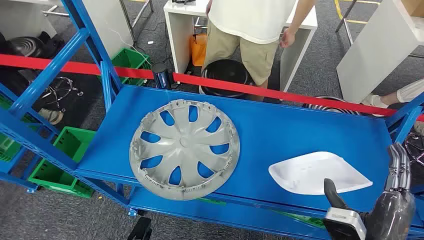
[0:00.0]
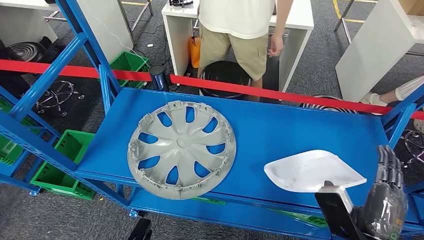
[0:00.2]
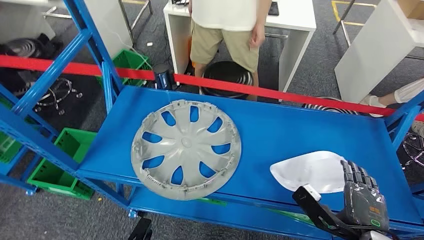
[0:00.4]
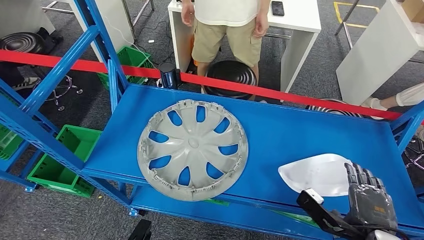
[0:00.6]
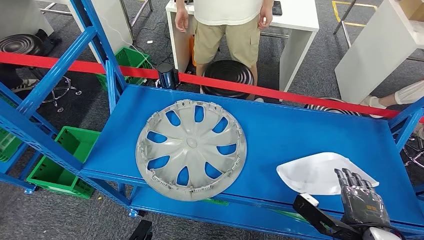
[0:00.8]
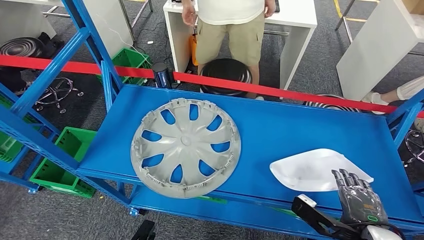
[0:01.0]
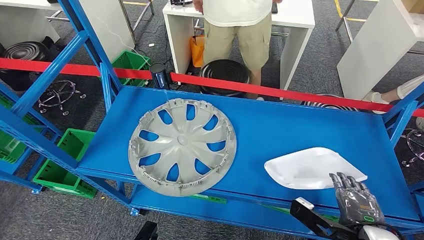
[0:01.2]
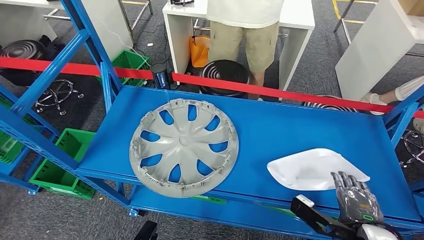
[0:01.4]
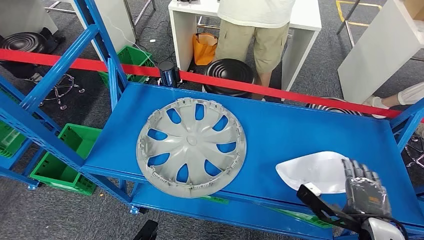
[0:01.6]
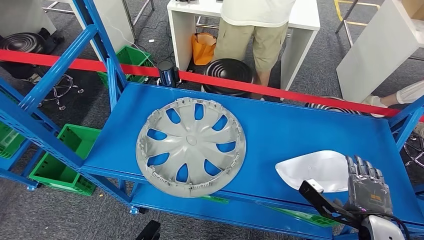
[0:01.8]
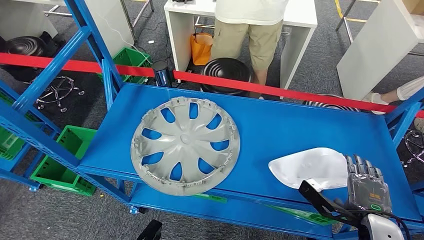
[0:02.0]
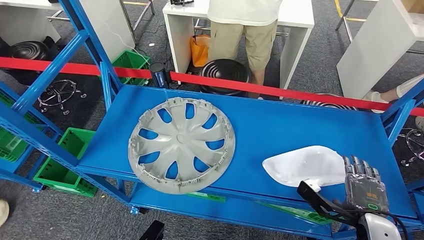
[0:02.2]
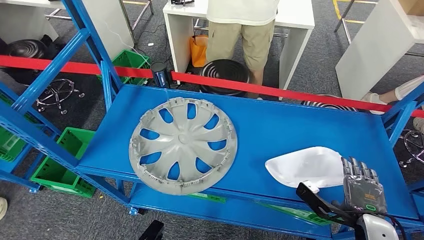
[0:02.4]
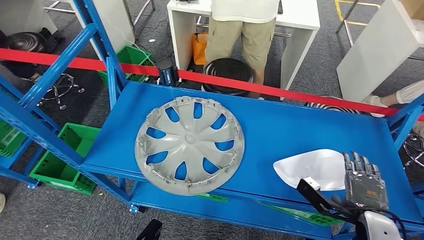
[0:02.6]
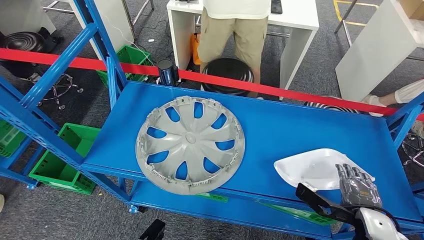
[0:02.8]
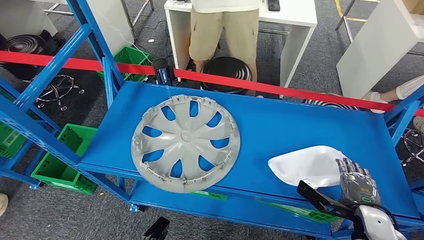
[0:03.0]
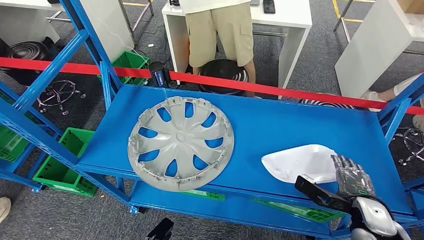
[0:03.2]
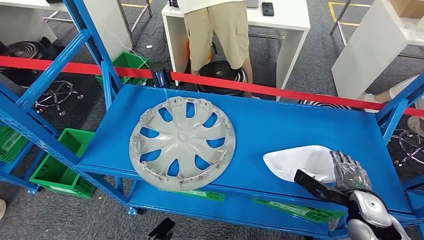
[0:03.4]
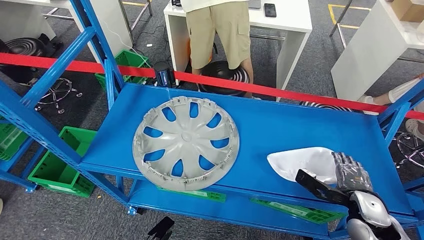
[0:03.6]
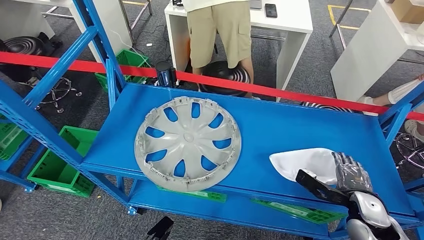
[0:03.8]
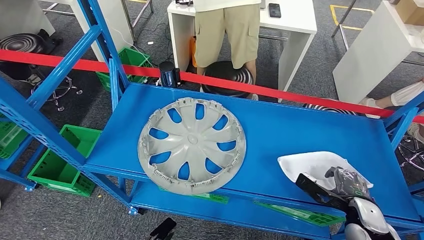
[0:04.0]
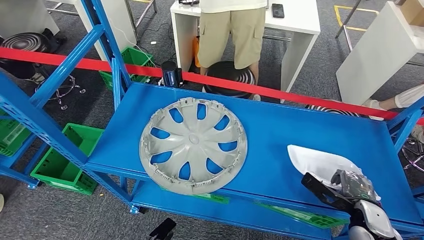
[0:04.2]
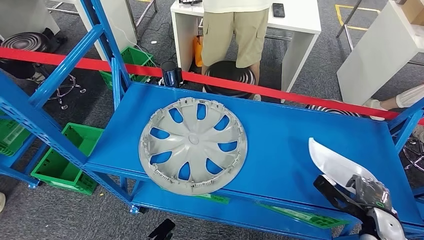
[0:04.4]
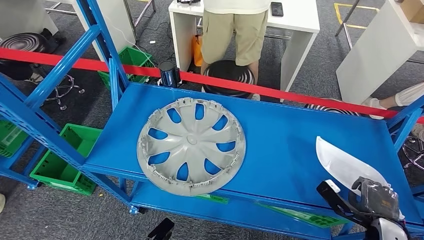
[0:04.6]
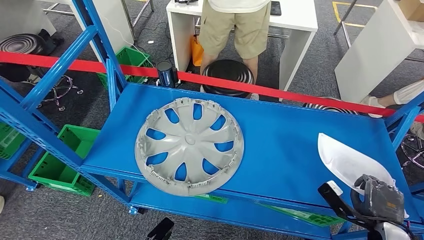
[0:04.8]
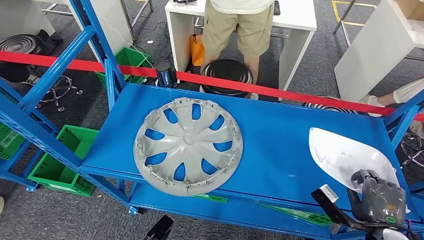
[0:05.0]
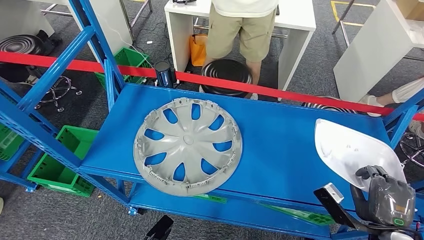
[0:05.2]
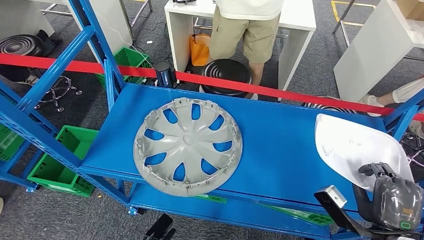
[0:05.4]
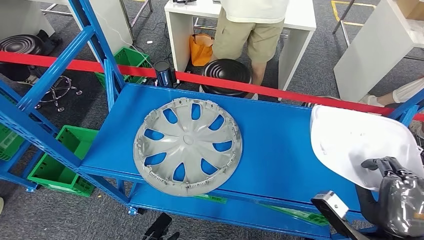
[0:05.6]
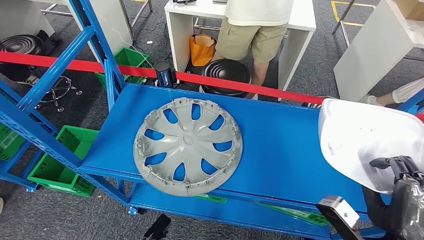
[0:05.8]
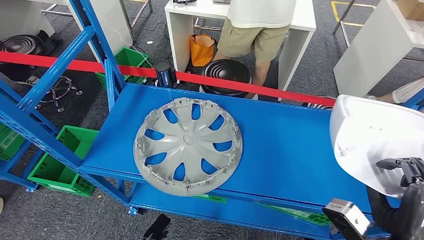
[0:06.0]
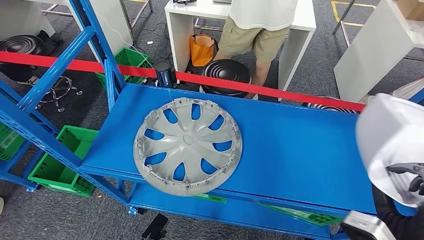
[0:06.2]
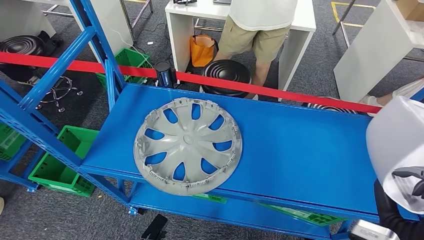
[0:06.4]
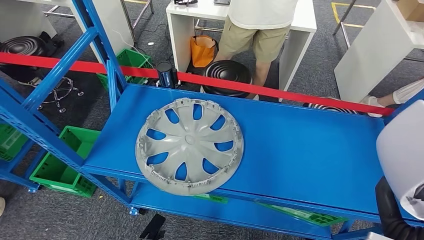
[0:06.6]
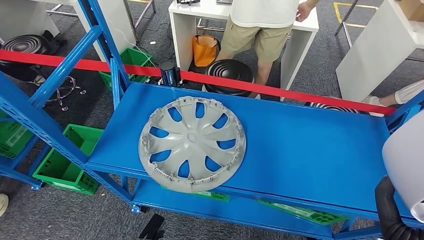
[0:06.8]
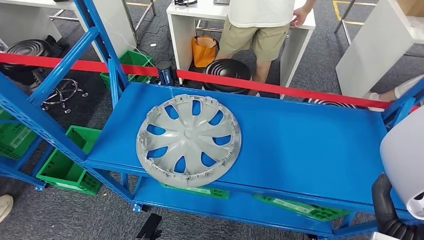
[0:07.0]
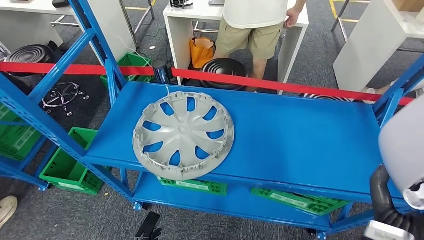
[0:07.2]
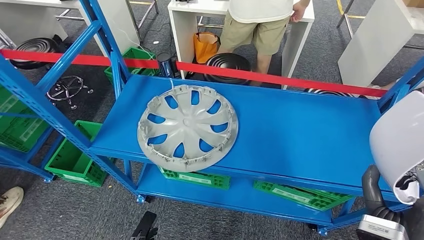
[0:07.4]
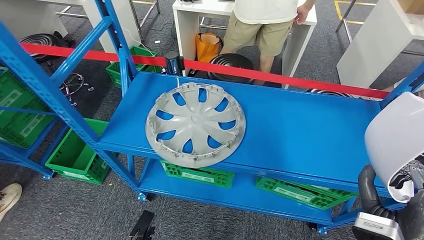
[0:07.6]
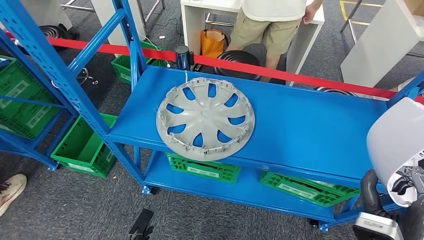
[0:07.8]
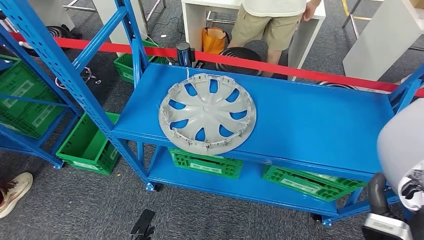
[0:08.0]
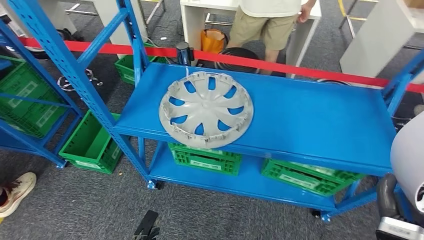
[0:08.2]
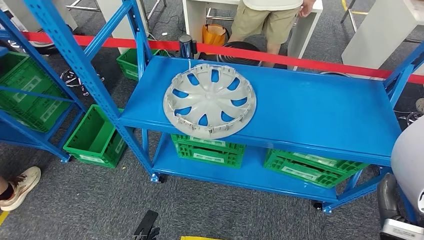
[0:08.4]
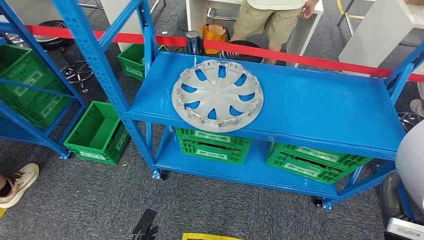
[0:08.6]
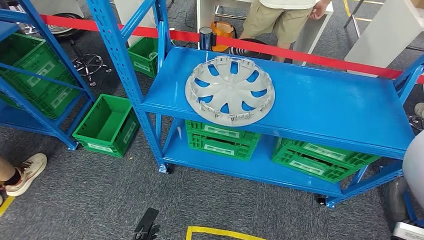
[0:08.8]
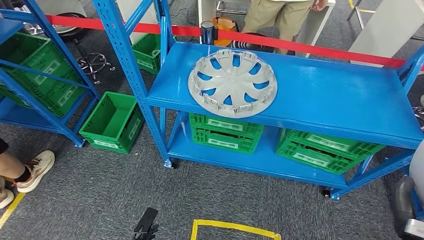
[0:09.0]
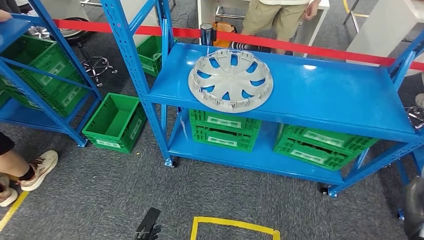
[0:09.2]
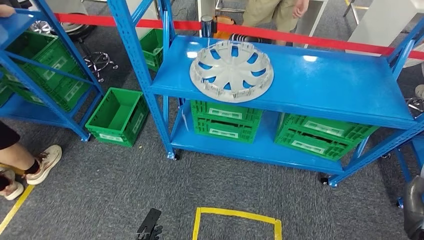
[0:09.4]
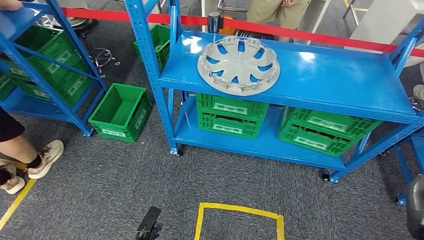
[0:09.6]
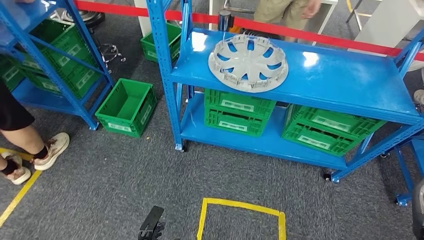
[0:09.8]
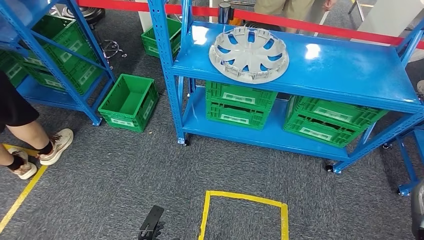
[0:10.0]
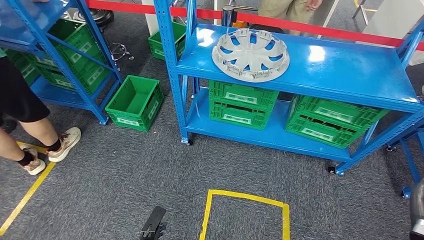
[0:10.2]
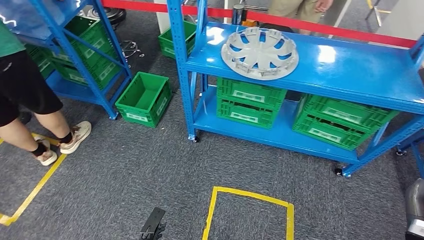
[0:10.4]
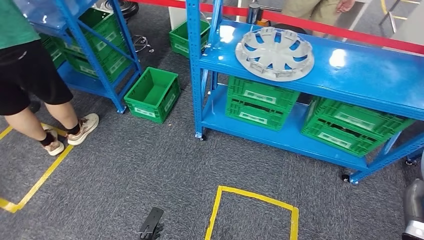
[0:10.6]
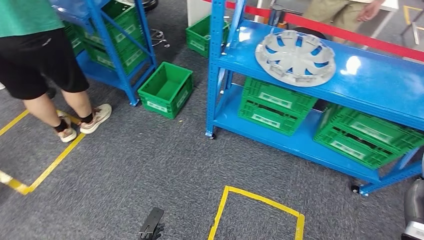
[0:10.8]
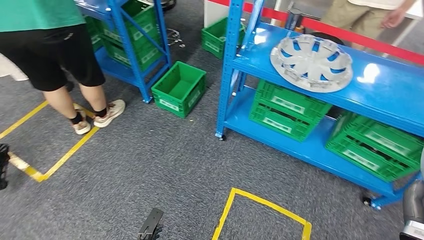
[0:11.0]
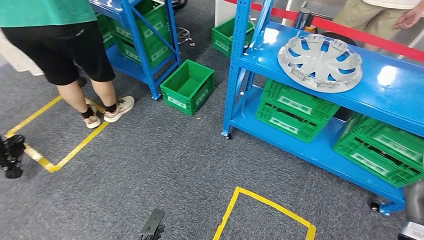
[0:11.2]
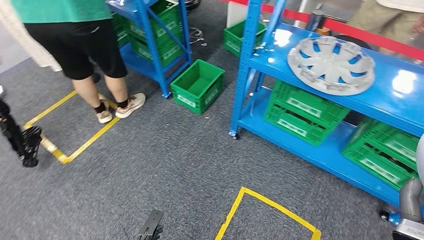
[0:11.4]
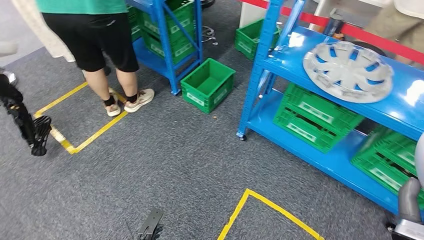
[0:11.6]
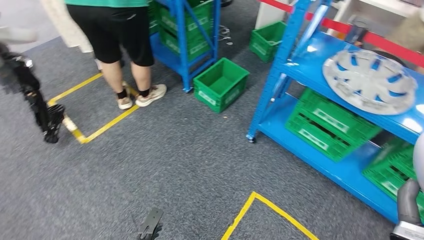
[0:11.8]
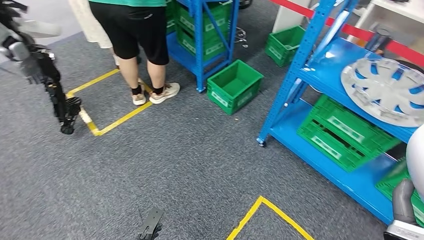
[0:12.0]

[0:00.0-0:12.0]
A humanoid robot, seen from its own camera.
Step, 0:00.0 to 0:07.0: Pick up the small component from the shelf.

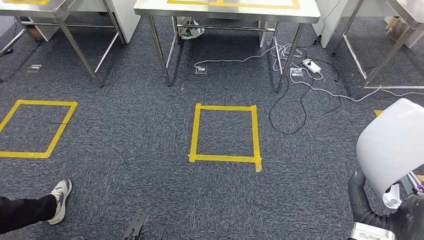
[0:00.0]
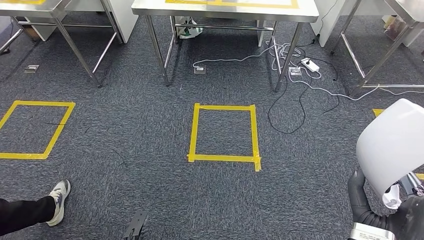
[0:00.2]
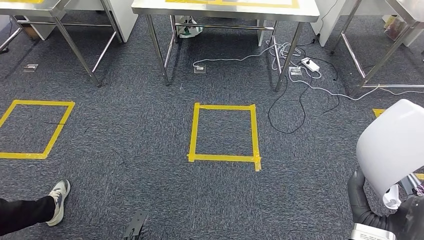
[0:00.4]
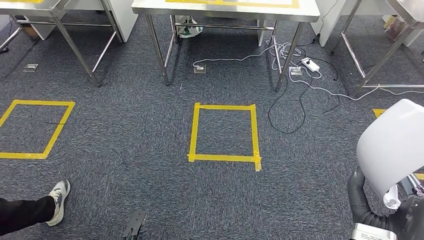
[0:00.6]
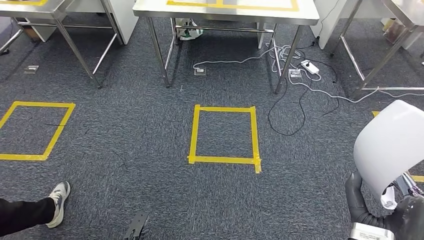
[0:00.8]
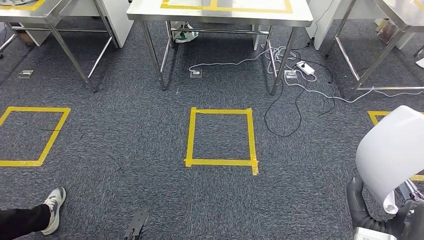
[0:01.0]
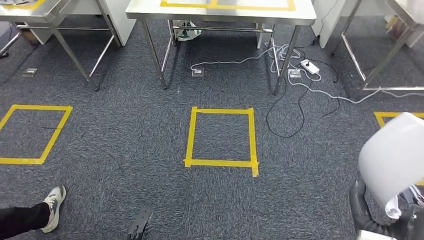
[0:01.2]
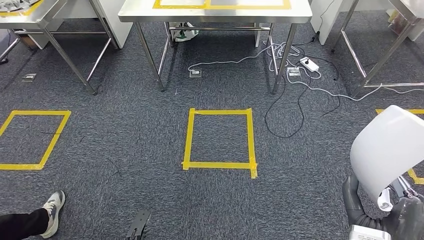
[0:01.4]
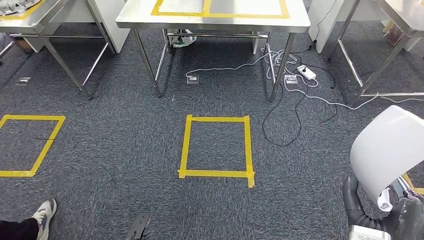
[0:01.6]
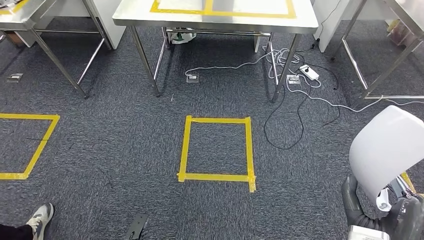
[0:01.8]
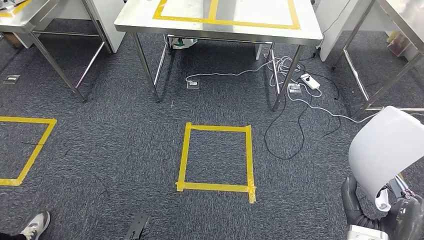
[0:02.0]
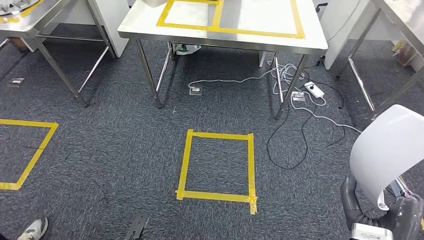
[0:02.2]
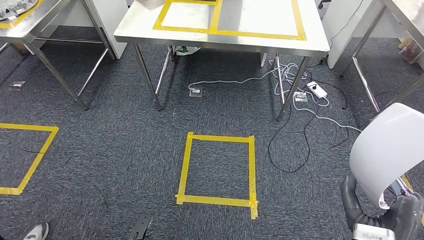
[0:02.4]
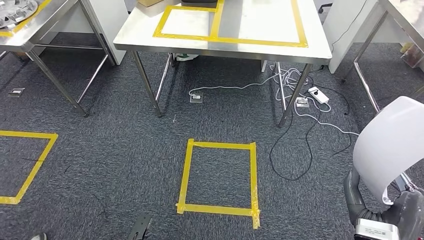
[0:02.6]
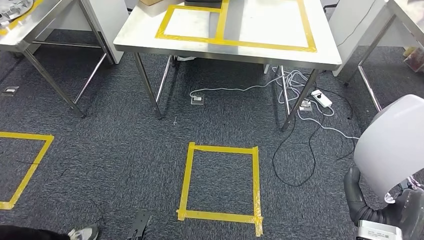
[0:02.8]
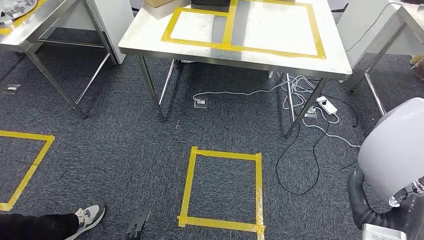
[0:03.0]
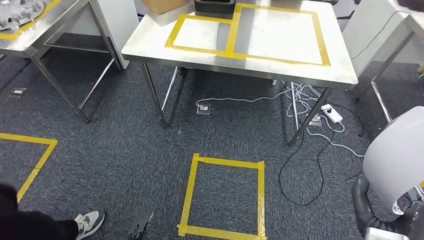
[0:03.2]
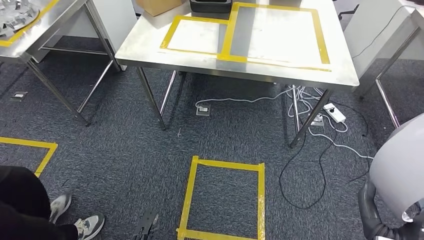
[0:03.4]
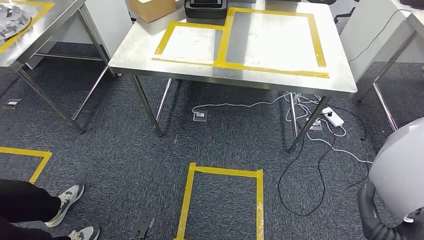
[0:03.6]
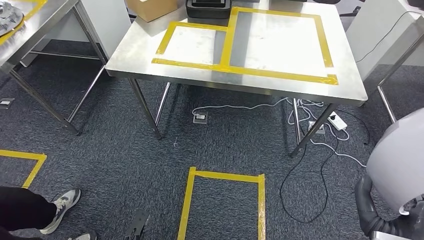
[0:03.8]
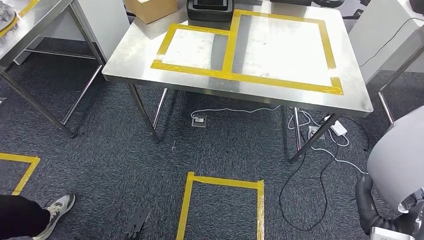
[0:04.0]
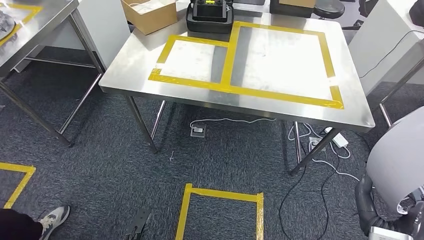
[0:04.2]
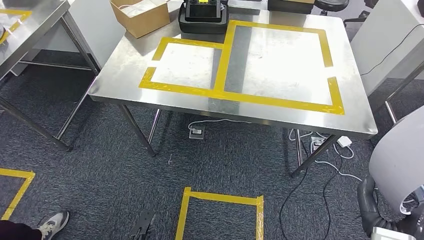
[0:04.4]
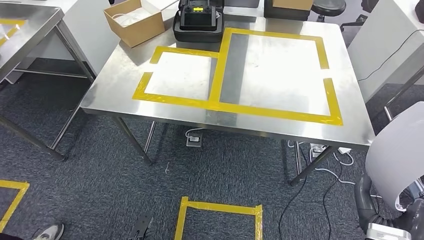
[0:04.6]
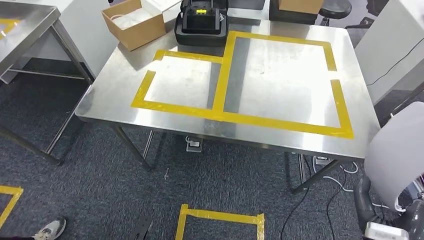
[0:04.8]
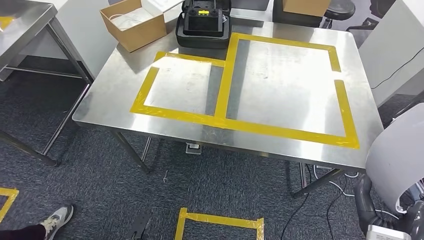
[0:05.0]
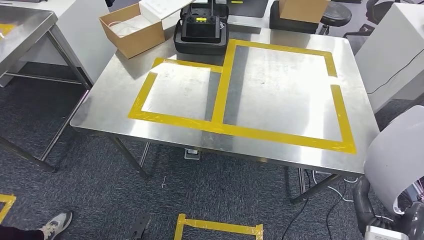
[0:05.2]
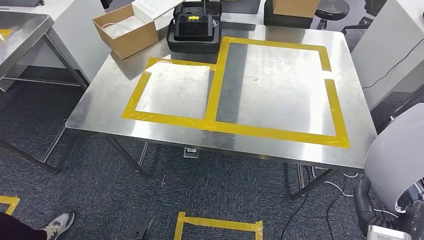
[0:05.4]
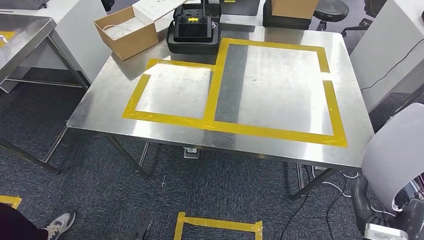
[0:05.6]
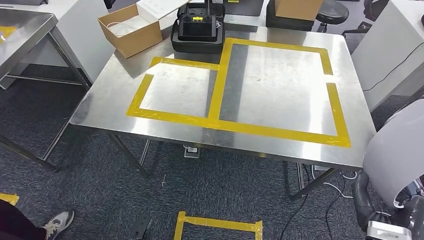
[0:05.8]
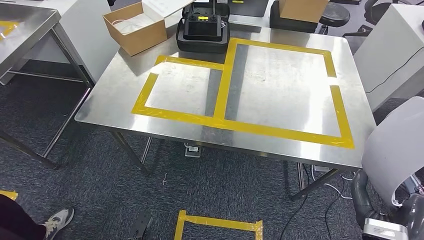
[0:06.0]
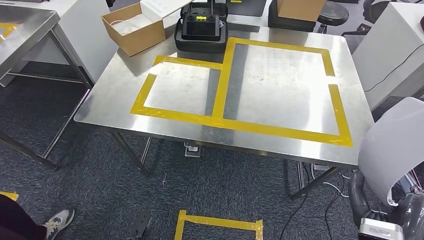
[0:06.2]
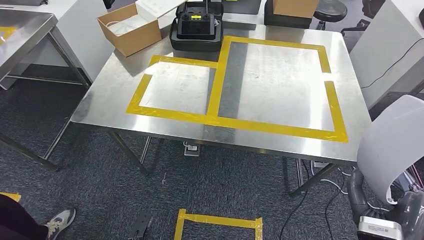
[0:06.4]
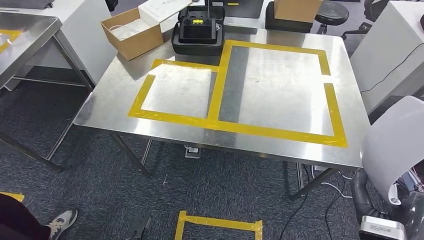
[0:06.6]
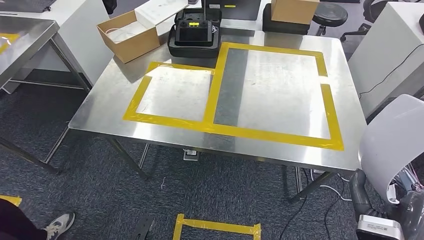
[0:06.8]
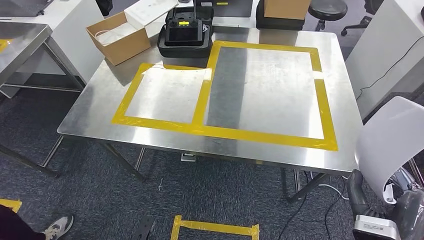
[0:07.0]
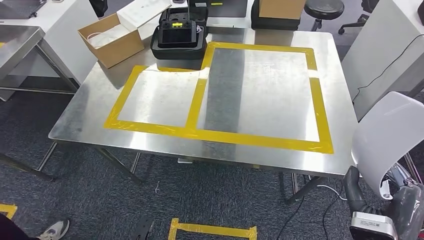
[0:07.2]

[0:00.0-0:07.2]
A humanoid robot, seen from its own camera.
Step, 0:00.0 to 0:04.2: Move the small component to the workbench.
